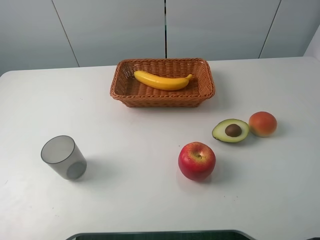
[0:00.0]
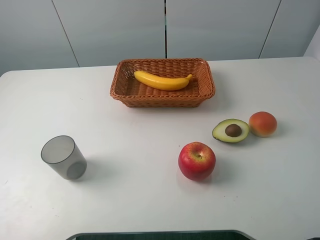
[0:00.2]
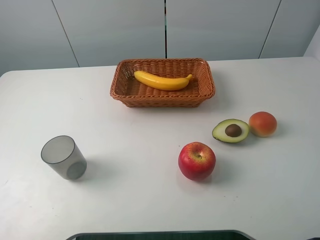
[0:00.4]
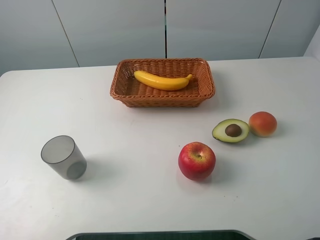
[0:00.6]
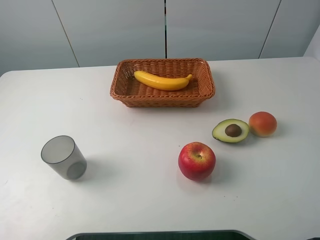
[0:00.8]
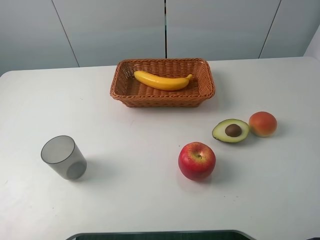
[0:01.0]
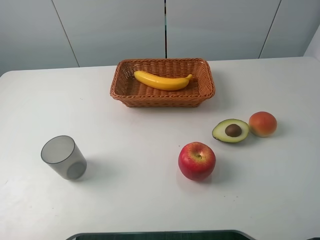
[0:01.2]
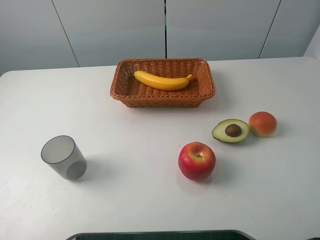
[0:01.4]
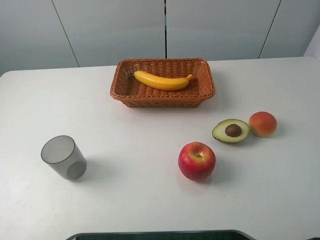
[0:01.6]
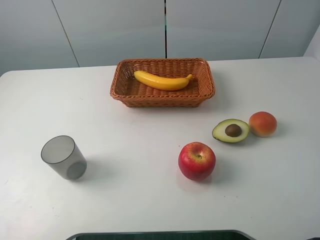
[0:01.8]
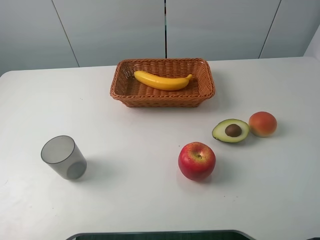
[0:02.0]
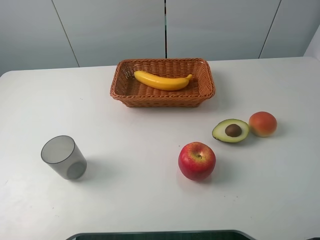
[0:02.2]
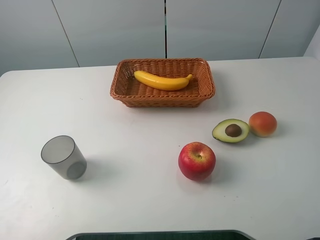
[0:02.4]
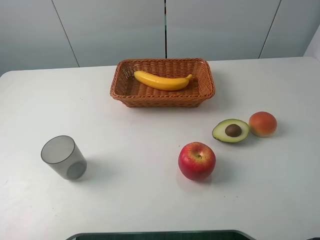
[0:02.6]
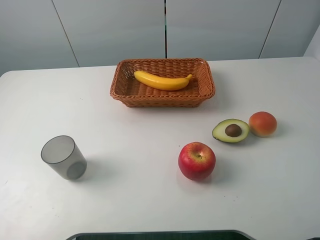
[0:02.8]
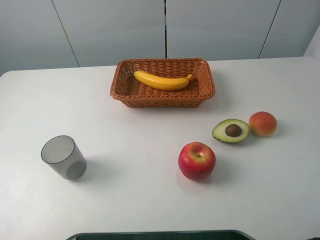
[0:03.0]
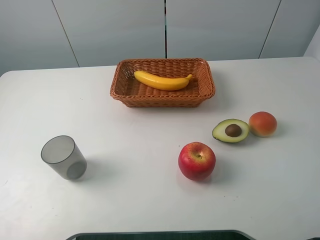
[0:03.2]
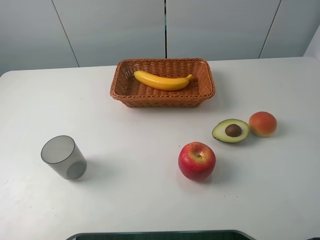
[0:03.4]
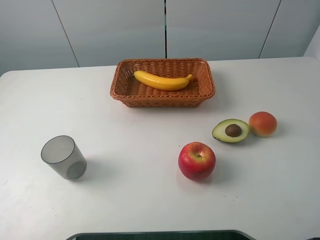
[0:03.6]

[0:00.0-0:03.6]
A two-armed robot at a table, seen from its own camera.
Task of the whole recording: randomly pick up an item from the table and put it in the basket.
0:01.8 to 0:03.6: Neither gripper changes place.
